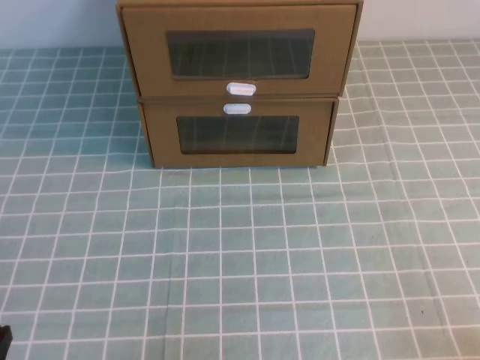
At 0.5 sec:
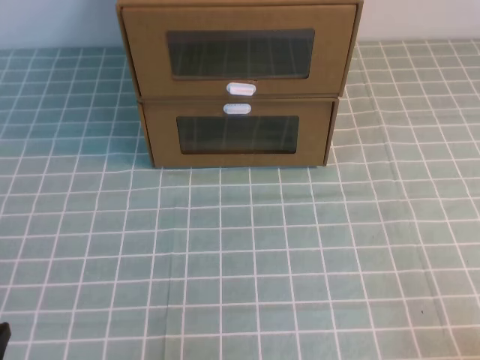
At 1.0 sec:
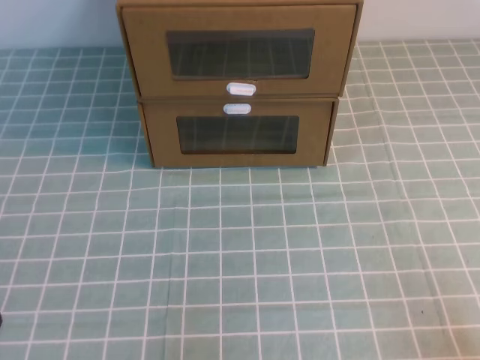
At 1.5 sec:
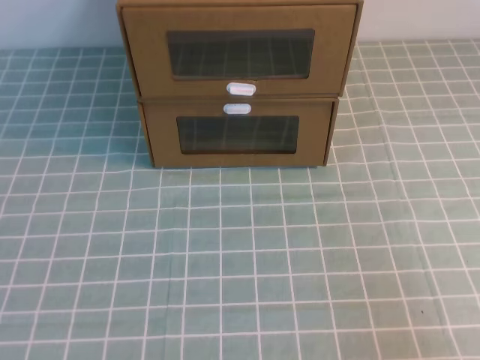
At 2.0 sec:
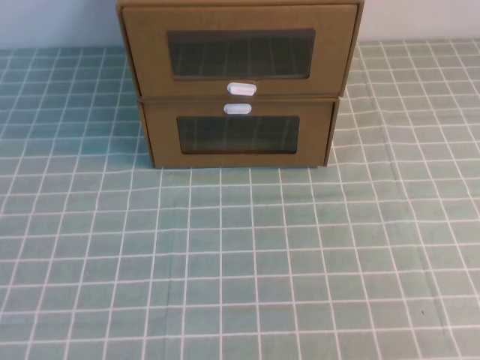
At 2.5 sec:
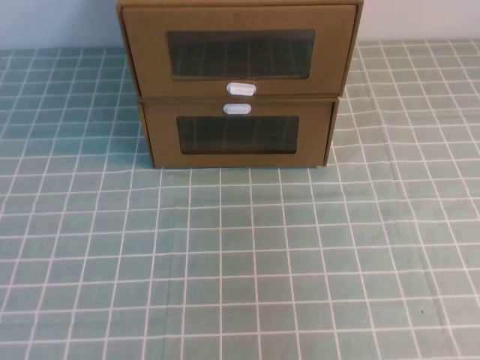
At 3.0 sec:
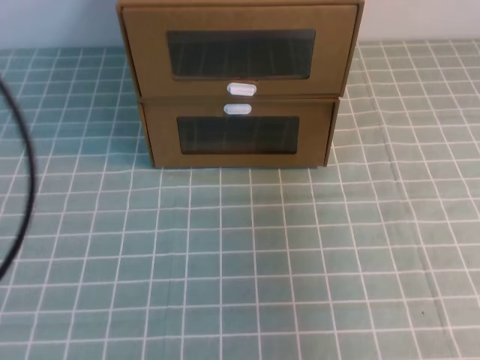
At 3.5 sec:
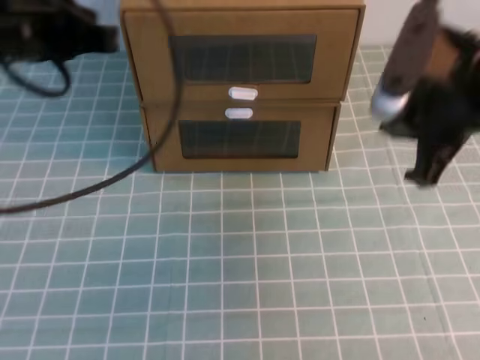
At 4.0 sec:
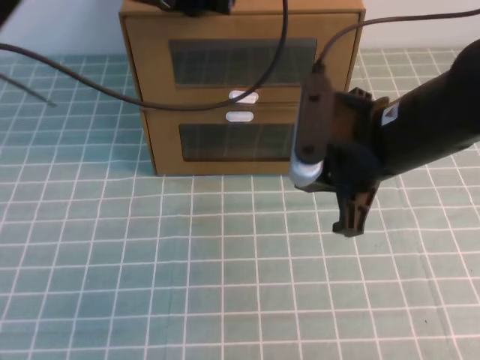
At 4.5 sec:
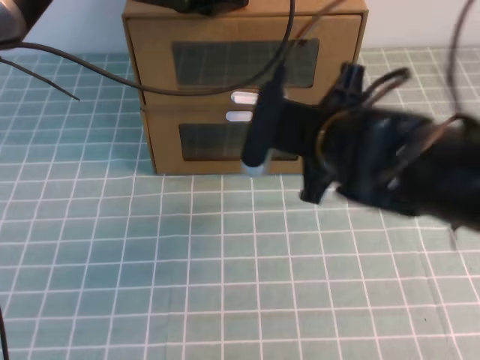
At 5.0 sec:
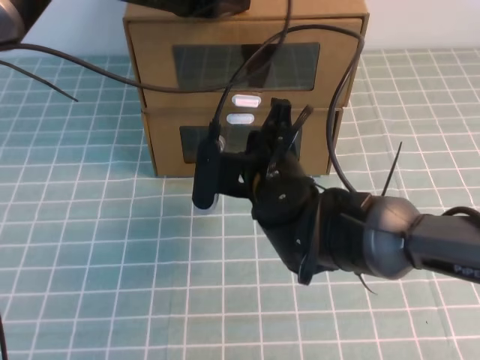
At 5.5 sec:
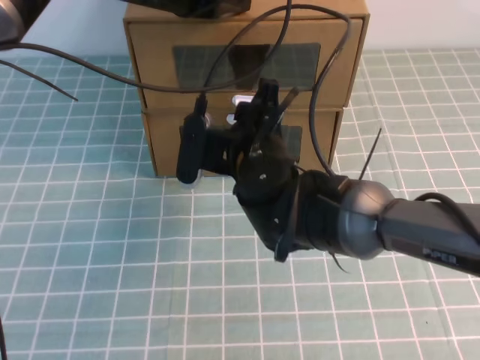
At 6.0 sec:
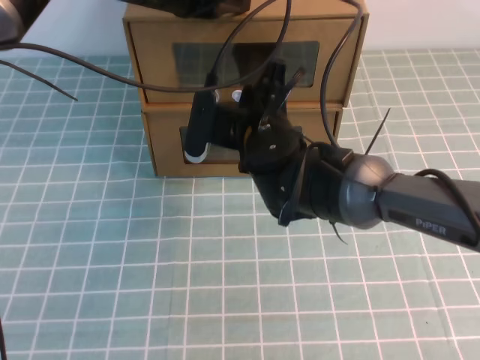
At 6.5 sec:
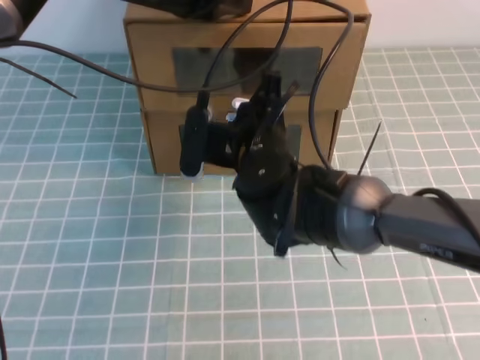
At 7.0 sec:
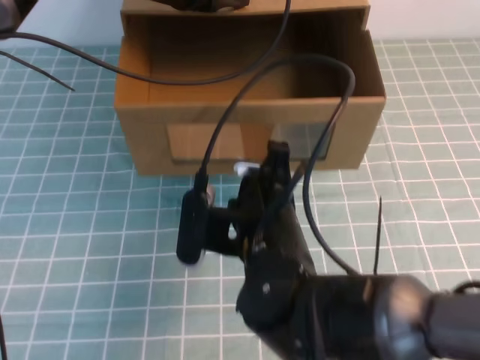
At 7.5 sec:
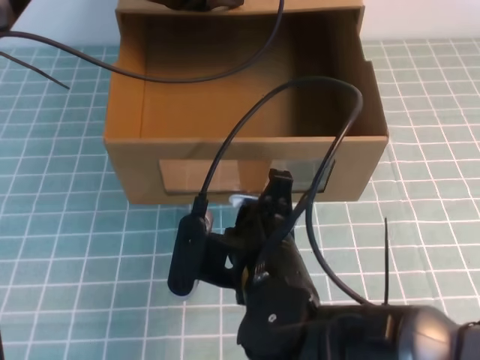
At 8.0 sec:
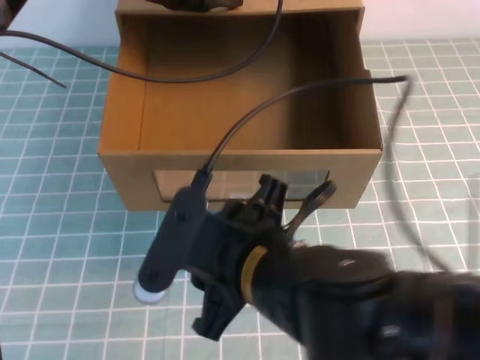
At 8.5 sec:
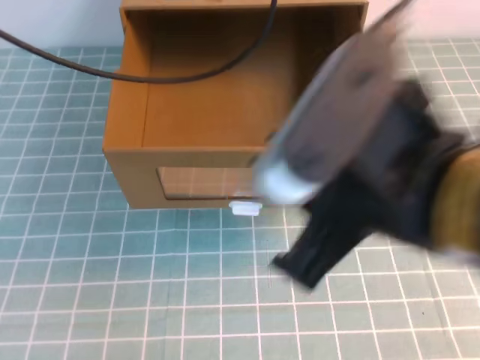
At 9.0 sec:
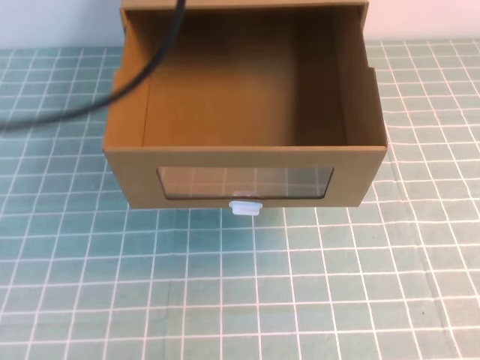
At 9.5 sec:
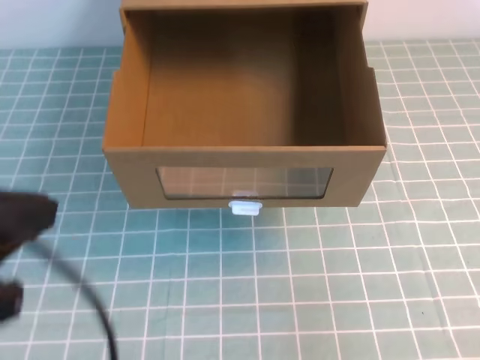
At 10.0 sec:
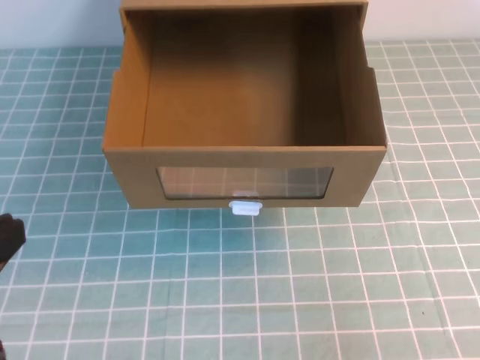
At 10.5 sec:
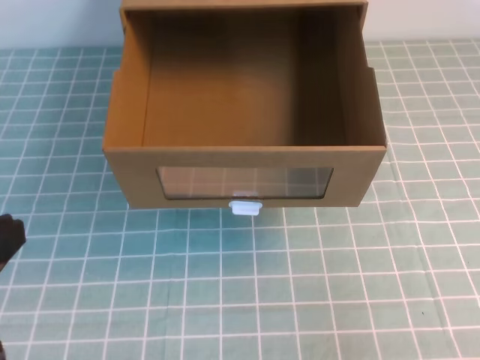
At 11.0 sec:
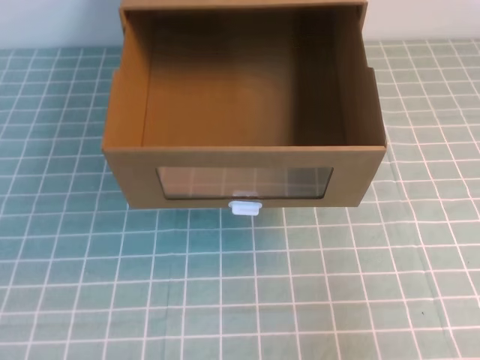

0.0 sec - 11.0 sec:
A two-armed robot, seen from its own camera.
Task of the whole recording: open the shoebox on the cyan tablecloth.
2.0 sec - 3.5 sec: The left gripper goes some 25 cm forward, while the right gripper travels forward and to the left by roughly 30 cm.
3.5 sec - 5.5 sec: The right gripper moves to the left and downward, about 20 cm, and opens; the left gripper goes some 20 cm forward and to the right.
5.5 sec - 7.5 sec: The right gripper shifts about 15 cm backward, and closes up.
7.5 sec - 9.0 sec: The left gripper goes some 25 cm backward, upward and to the left. The right gripper moves upward, to the right and backward, some 30 cm, and opens and closes again.
9.0 sec - 11.0 sec: The left gripper heads downward, backward and to the left, covering approximately 30 cm, while the right gripper shifts approximately 15 cm downward.

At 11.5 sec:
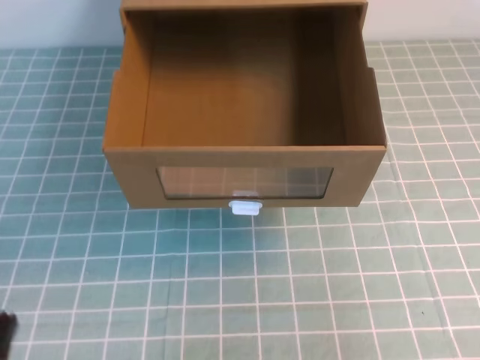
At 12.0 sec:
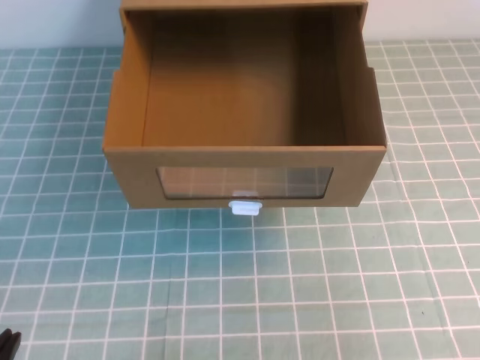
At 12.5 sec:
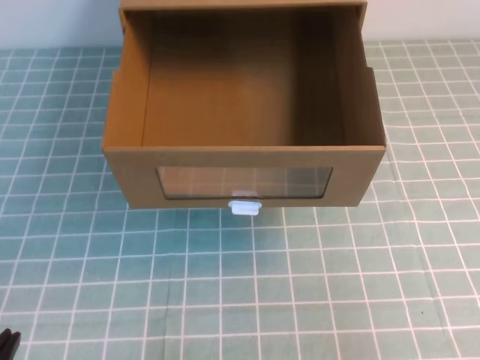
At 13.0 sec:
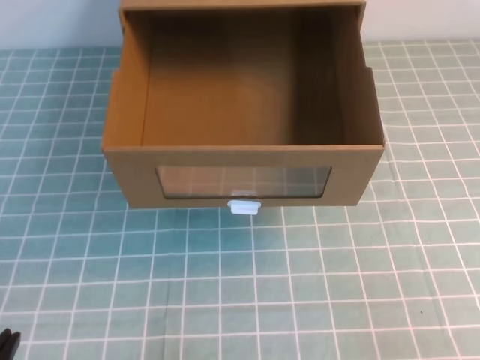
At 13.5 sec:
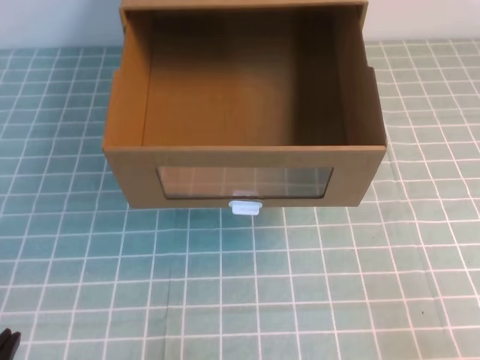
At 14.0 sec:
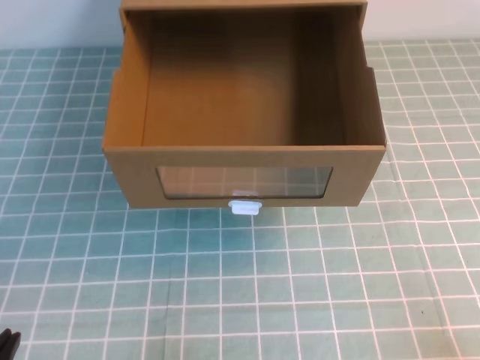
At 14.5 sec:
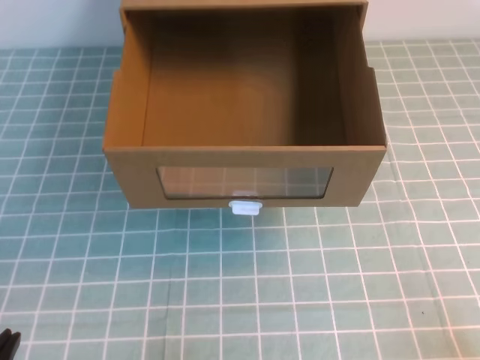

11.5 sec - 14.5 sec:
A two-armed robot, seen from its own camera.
Task of the whole recording: open the shoebox on the cyan tablecloth.
11.5 sec - 13.0 sec: The right gripper moves to the right and backward, about 10 cm.
13.0 sec - 14.5 sec: The right gripper travels downward by about 15 cm.

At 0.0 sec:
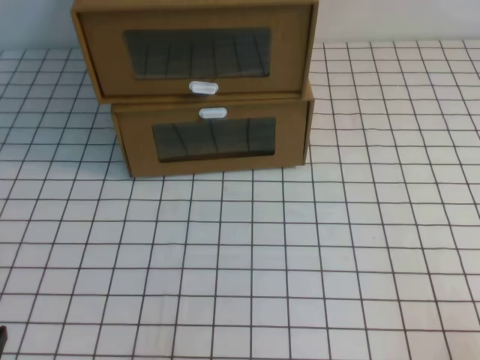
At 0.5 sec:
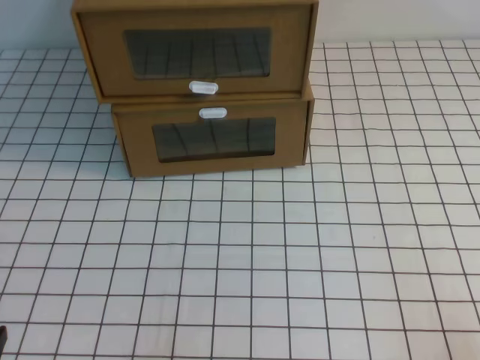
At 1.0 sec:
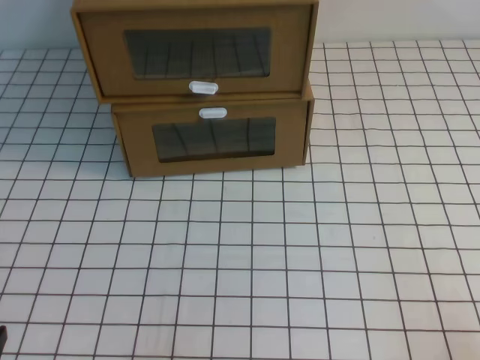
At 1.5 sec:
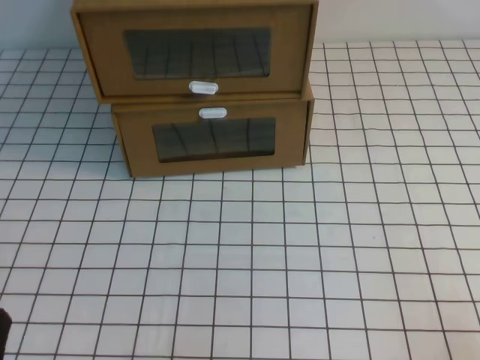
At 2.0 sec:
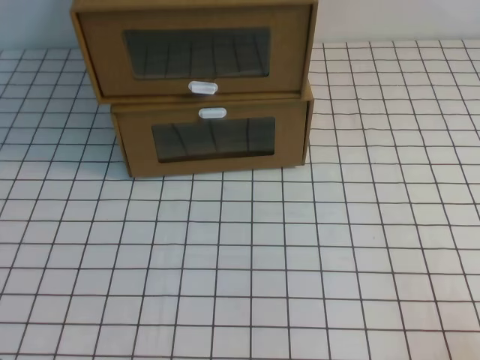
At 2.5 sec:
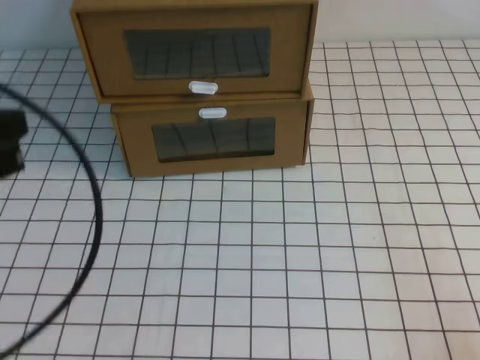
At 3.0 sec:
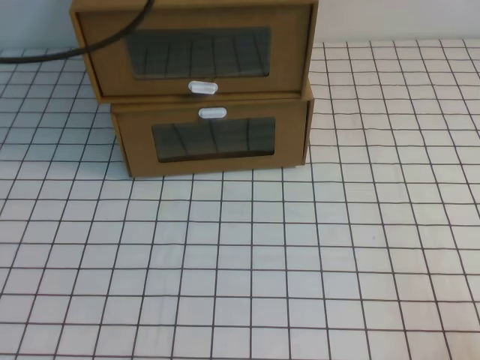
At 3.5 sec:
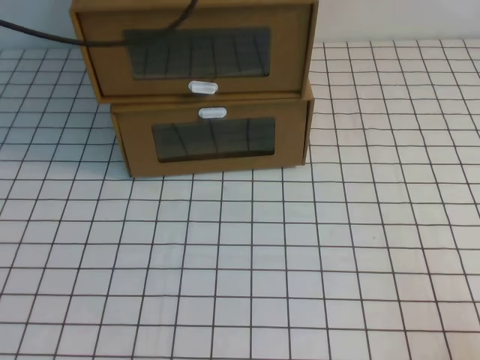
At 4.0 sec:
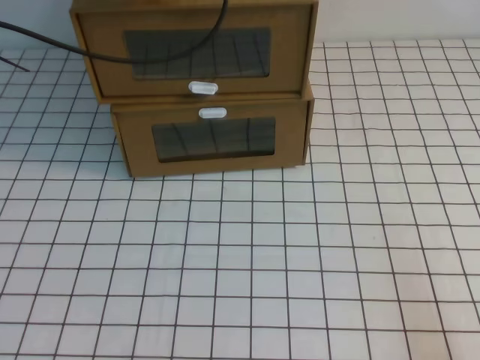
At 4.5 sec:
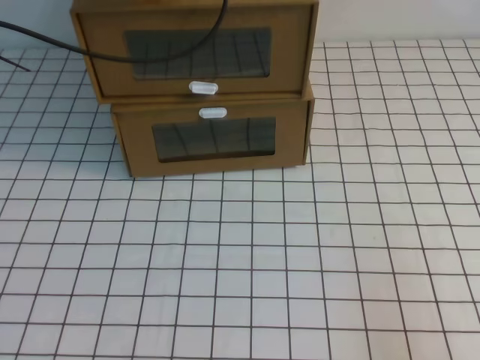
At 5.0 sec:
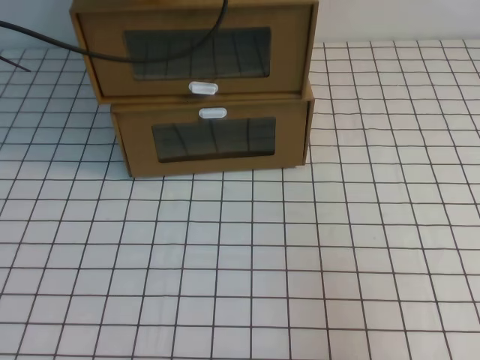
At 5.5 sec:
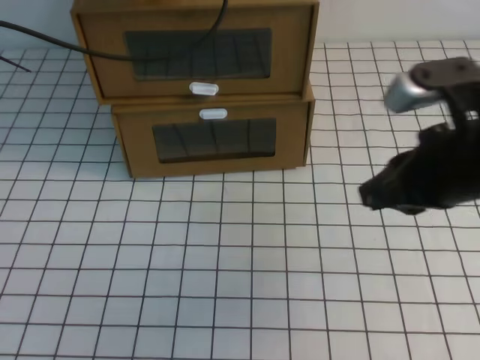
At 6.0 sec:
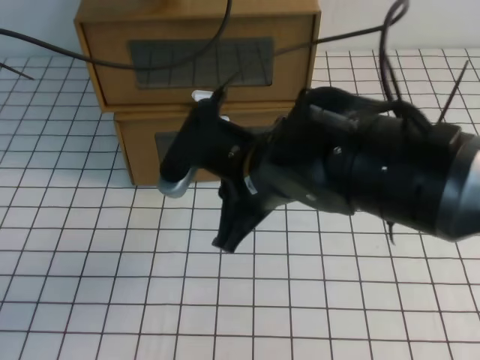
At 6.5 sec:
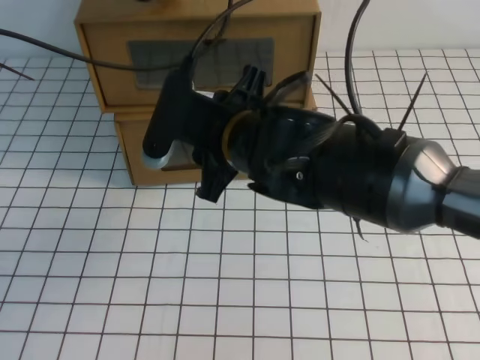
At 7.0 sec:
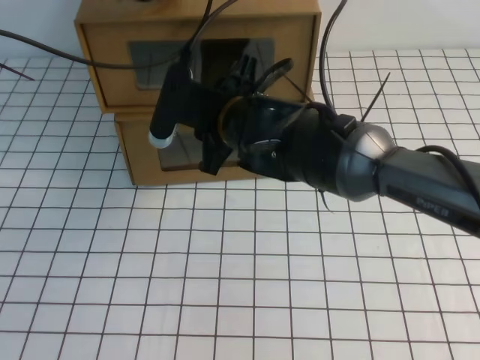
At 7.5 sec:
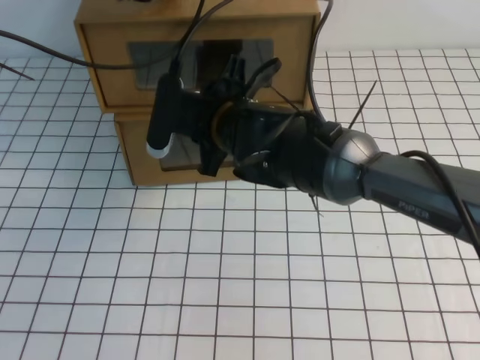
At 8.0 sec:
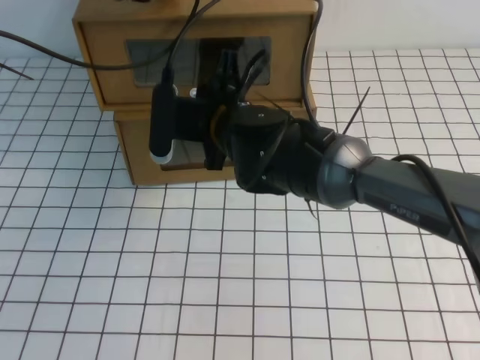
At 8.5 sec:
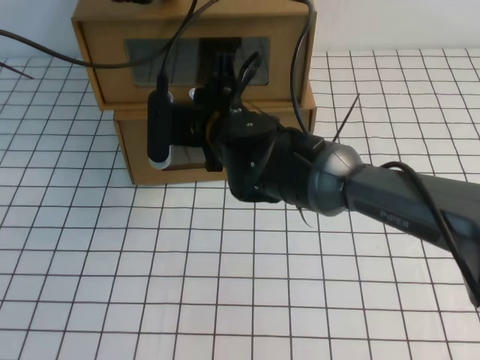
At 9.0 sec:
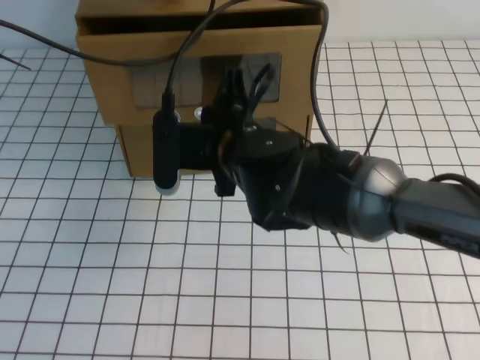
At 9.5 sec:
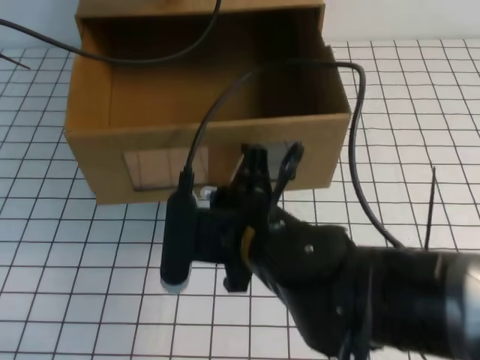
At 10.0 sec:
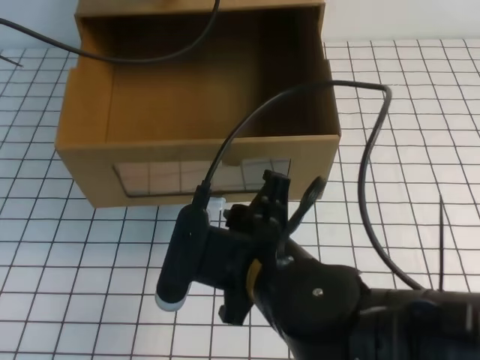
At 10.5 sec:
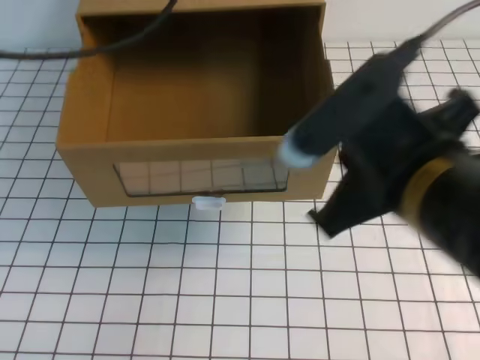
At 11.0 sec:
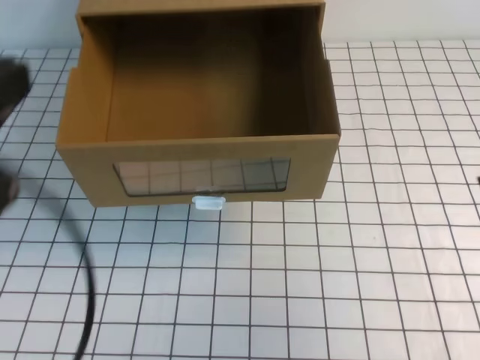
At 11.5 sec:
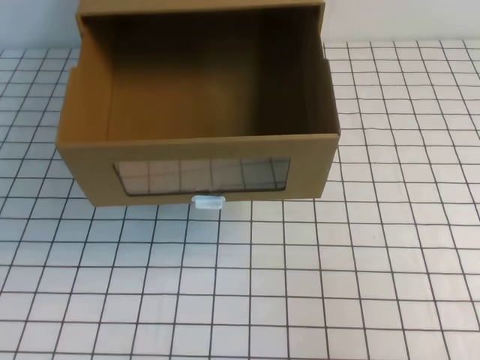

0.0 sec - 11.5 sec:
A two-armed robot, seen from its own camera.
Task of the whole recording: open the shoebox on the white tablecloth.
2.0 sec - 4.0 sec: The left gripper goes roughly 40 cm forward and upward.
4.0 sec - 6.0 sec: The right gripper moves to the left and forward, some 35 cm.
6.0 sec - 7.5 sec: The right gripper shifts roughly 10 cm forward and to the left, and opens up.
7.5 sec - 9.5 sec: The right gripper shifts approximately 15 cm backward, and closes up.
9.5 sec - 11.5 sec: The left gripper heads backward, covering approximately 40 cm, while the right gripper goes about 25 cm to the right, and opens, then closes again.
